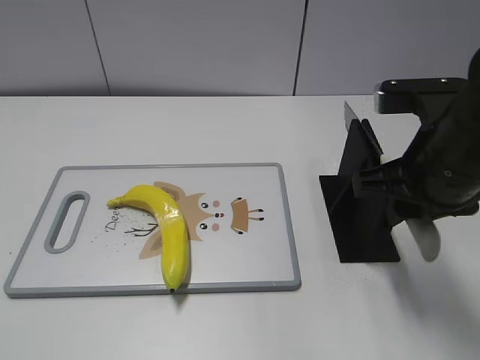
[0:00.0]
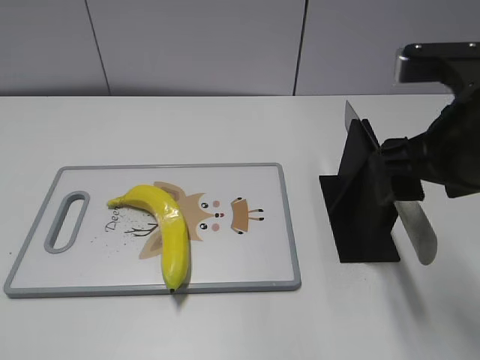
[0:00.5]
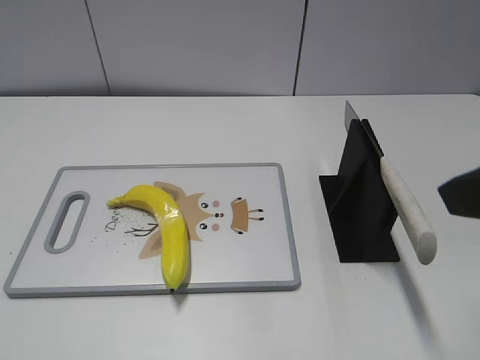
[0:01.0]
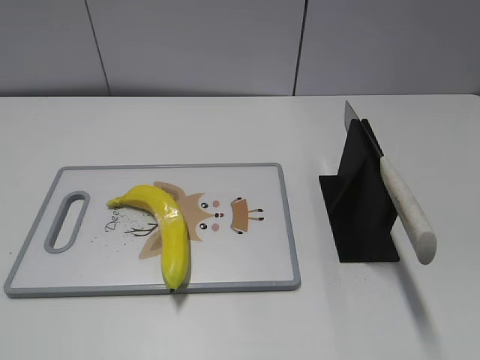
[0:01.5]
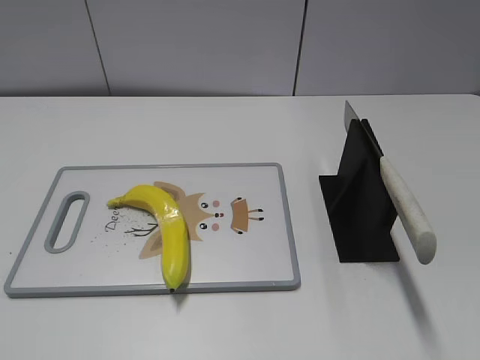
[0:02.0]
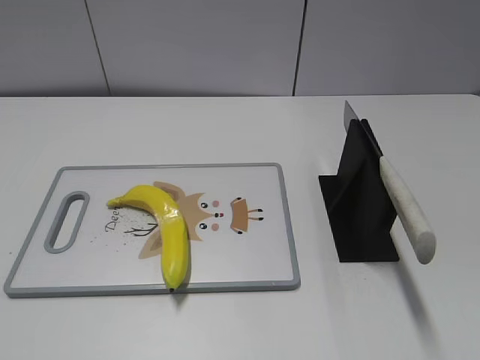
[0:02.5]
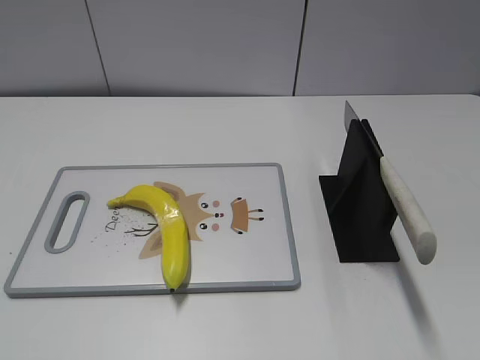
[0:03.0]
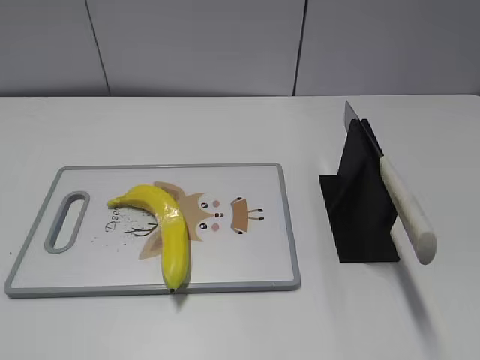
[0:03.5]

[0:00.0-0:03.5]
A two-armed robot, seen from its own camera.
Task of the whole recording: cut plastic banana.
Step, 0:00.0 to 0:03.5: Place the knife on the storage rack with your right hand.
0:00.0 to 0:02.0: The right gripper travels backward and to the right by about 25 cm, and opens.
